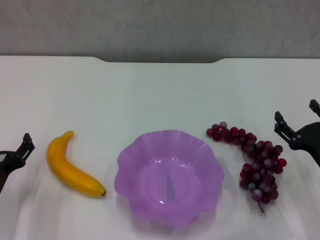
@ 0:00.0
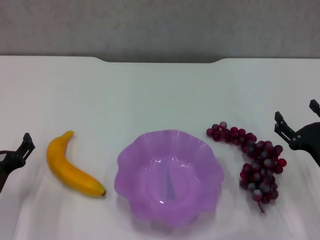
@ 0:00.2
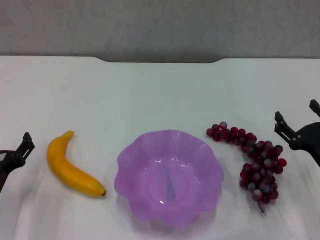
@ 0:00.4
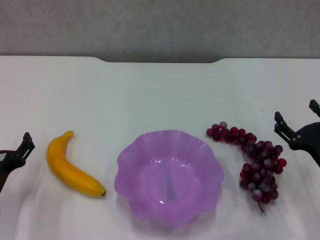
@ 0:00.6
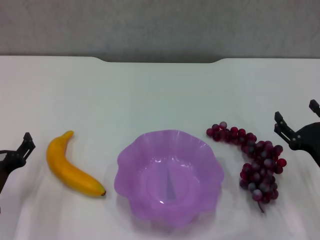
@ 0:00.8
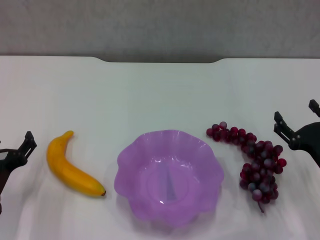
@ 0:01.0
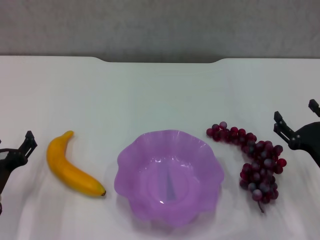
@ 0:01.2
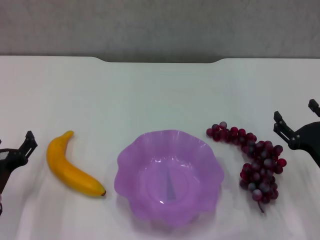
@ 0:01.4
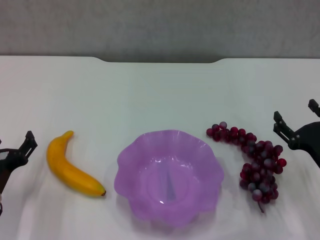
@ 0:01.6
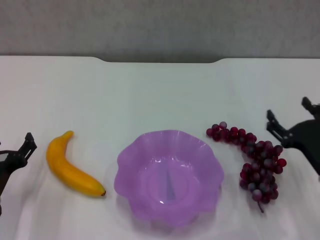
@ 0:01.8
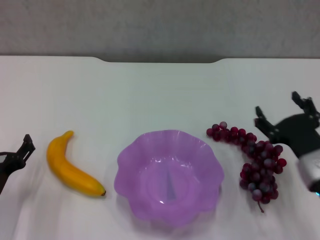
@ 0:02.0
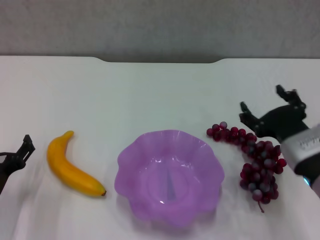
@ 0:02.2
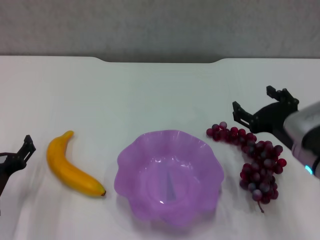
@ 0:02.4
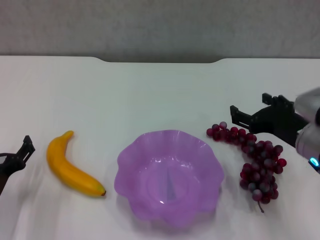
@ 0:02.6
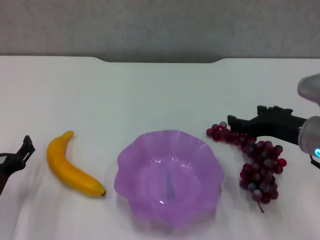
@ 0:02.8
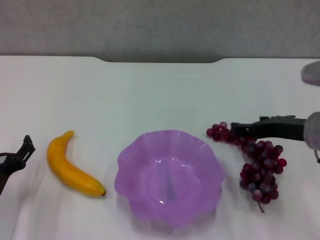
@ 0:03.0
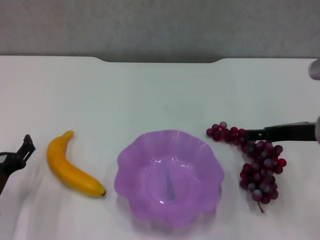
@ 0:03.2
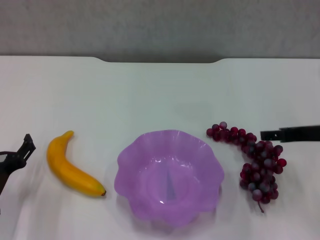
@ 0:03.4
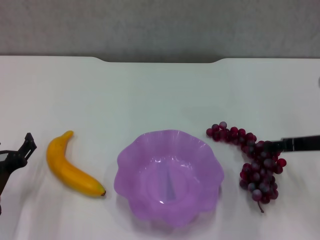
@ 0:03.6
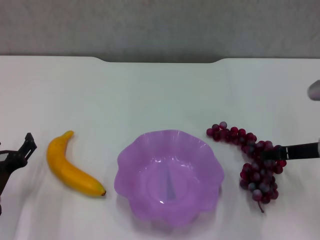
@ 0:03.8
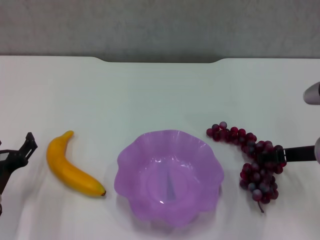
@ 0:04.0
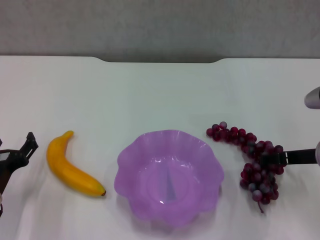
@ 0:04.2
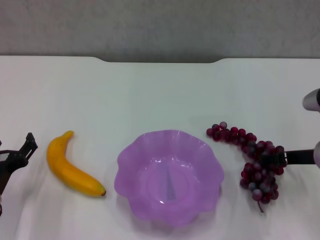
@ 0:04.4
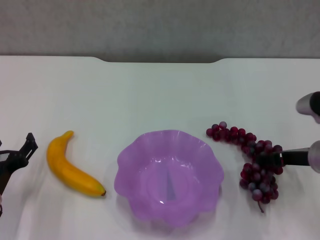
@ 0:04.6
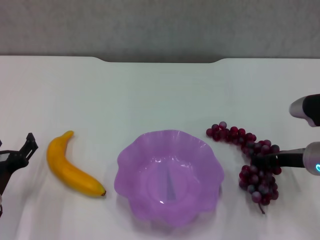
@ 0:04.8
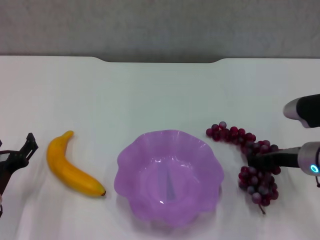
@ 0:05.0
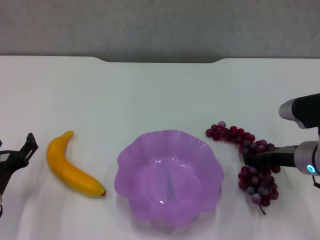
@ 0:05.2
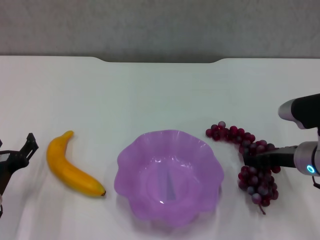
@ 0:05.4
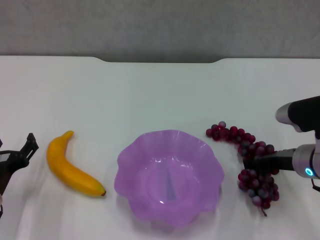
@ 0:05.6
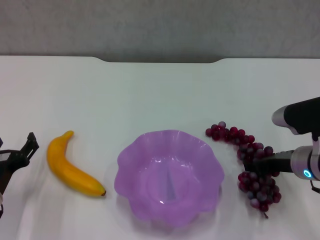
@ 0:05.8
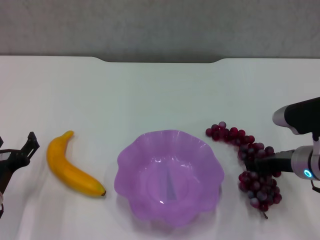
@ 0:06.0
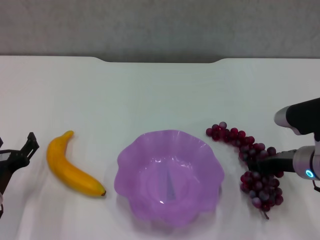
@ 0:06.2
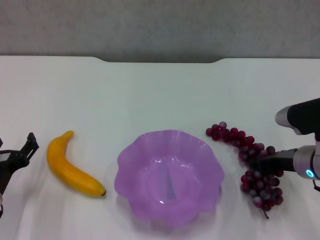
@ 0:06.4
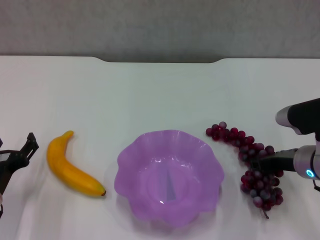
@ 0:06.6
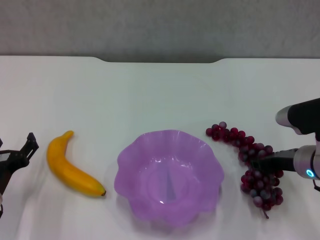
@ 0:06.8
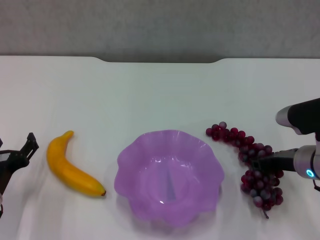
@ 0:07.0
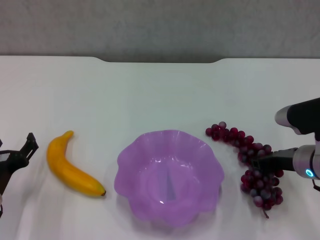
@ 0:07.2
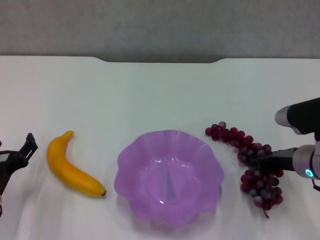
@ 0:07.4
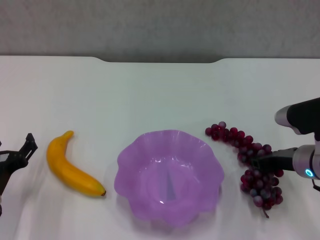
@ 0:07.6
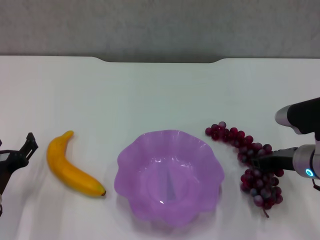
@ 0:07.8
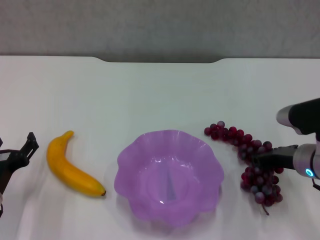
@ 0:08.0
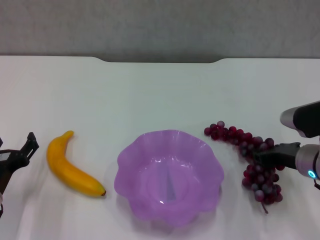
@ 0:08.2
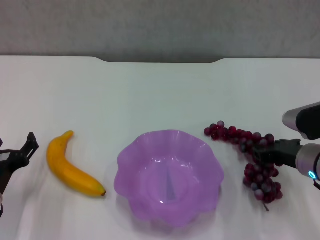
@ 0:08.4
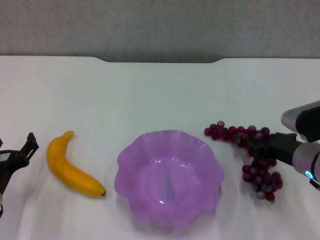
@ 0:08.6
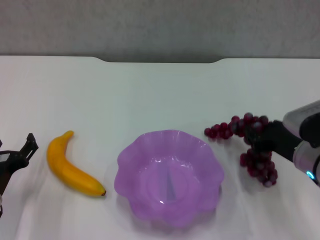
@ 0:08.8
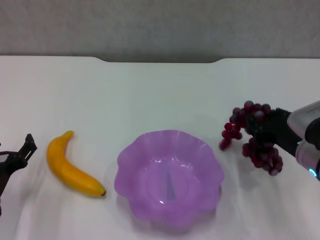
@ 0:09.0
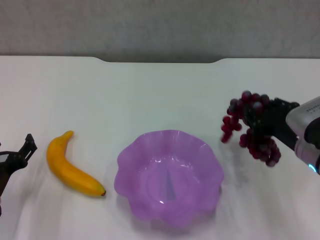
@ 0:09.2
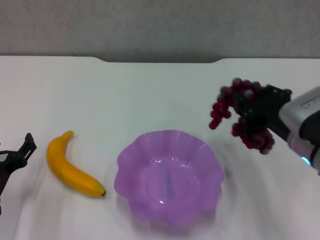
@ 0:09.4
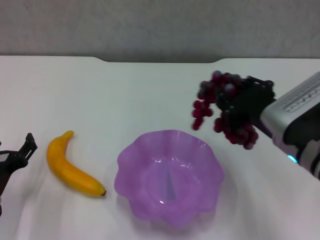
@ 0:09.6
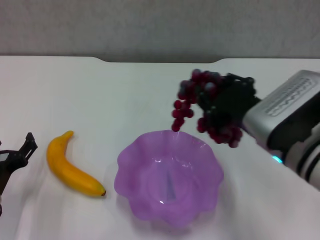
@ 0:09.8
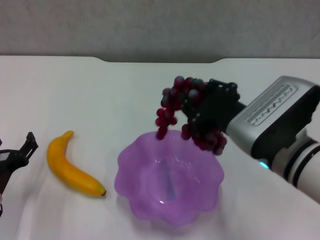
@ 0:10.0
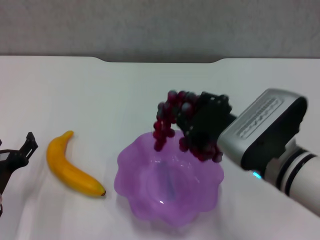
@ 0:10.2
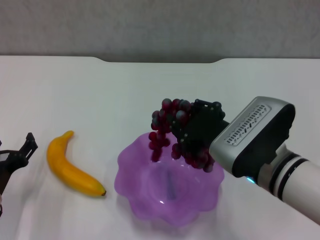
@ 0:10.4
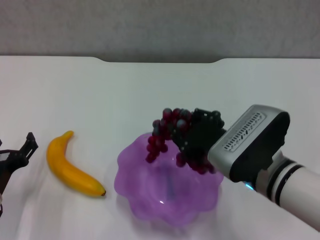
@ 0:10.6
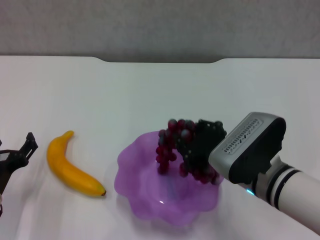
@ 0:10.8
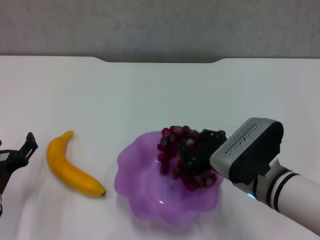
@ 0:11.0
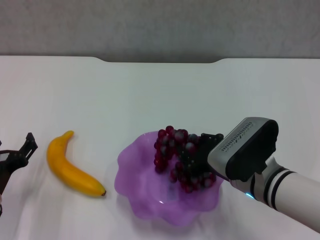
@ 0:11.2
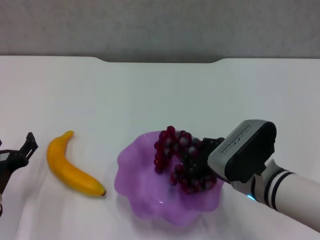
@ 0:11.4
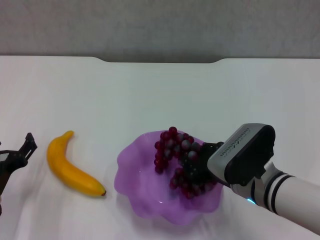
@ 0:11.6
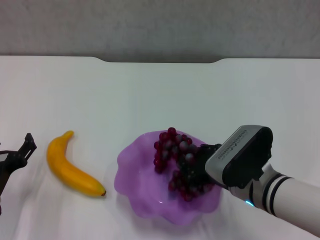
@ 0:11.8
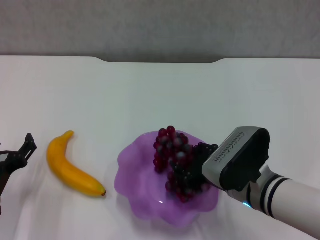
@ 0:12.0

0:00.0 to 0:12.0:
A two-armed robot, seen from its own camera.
Step, 0:00.0 to 0:06.2: Grasp the grape with right gripper.
0:00.0 to 0:01.6: The two grippers keep their place.
0:01.6 to 0:03.0: The right gripper travels upward and forward by about 15 cm.
0:03.0 to 0:04.4: The right gripper heads downward, covering some 5 cm.
0:04.4 to 0:06.0: The grippers move only a little.
0:06.0 to 0:07.6: The right gripper closes up.
0:07.6 to 0:09.0: The right gripper changes place by roughly 5 cm.
0:09.0 to 0:10.4: The right gripper is displaced to the left by about 10 cm.
0:10.4 to 0:12.0: The right gripper travels downward by about 5 cm.

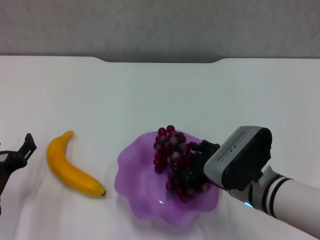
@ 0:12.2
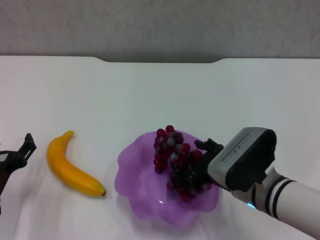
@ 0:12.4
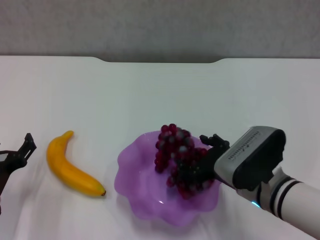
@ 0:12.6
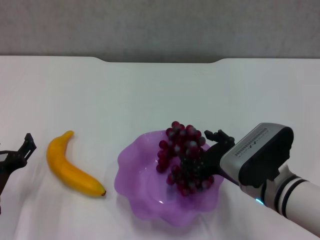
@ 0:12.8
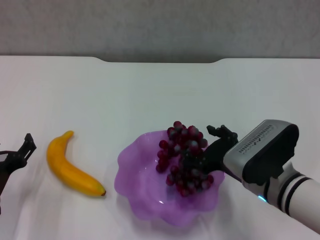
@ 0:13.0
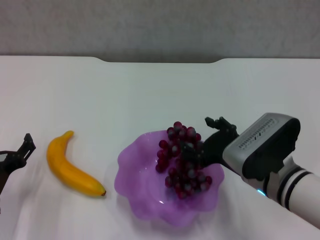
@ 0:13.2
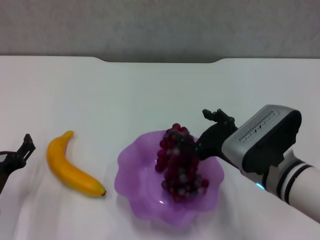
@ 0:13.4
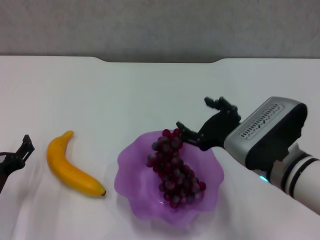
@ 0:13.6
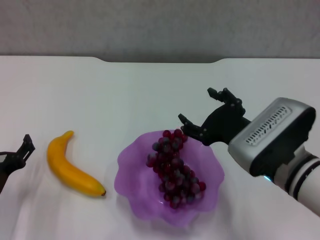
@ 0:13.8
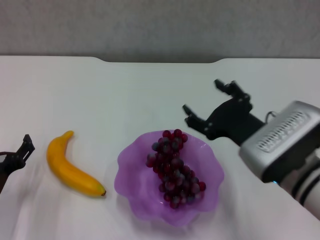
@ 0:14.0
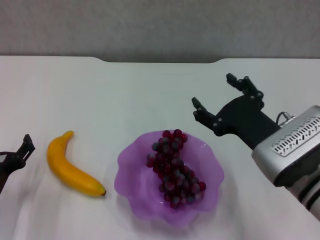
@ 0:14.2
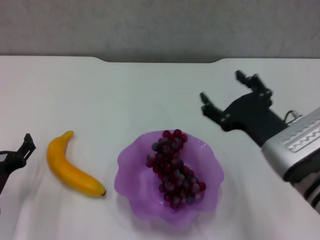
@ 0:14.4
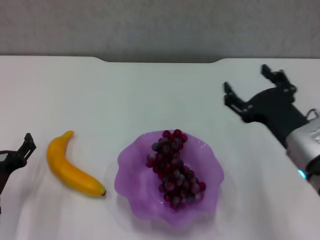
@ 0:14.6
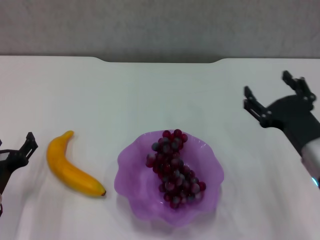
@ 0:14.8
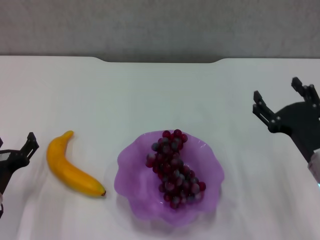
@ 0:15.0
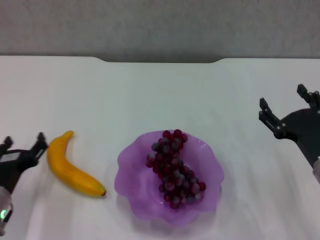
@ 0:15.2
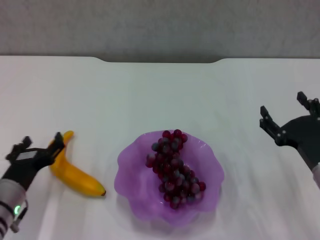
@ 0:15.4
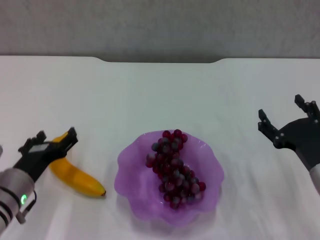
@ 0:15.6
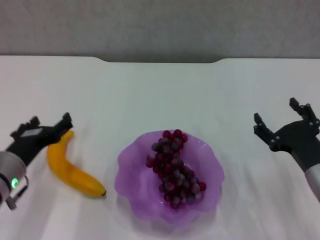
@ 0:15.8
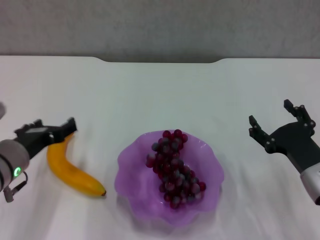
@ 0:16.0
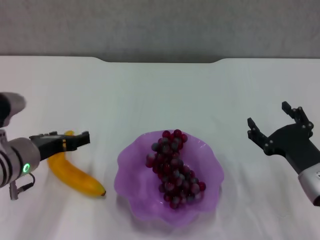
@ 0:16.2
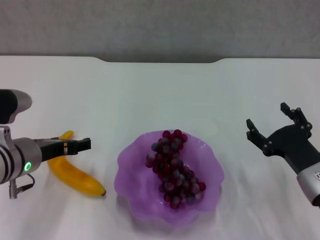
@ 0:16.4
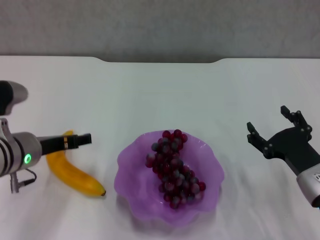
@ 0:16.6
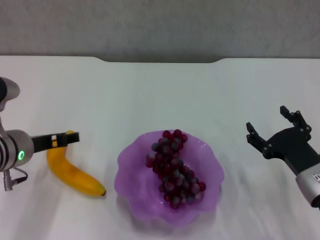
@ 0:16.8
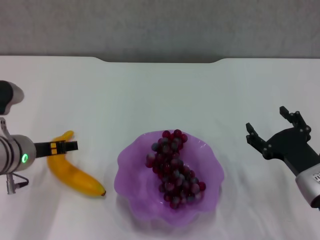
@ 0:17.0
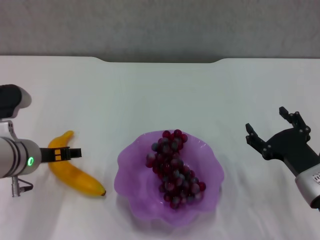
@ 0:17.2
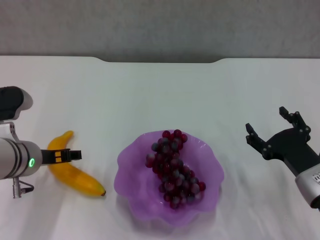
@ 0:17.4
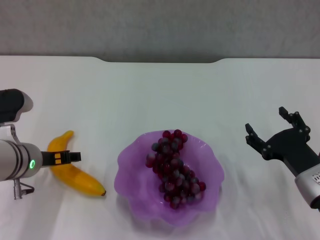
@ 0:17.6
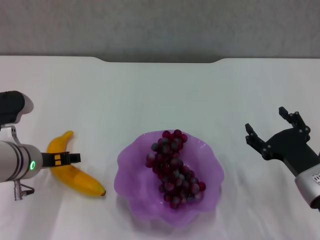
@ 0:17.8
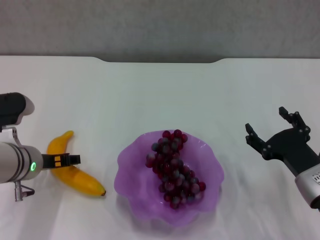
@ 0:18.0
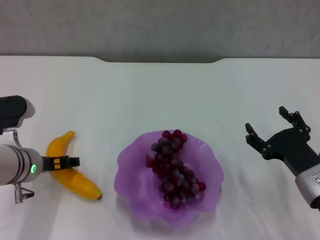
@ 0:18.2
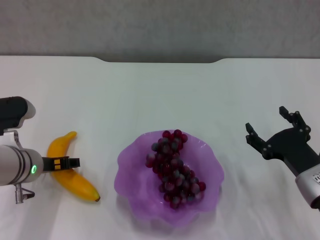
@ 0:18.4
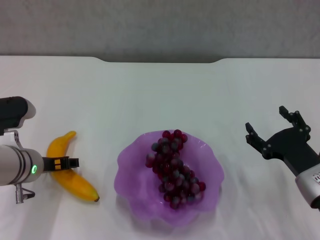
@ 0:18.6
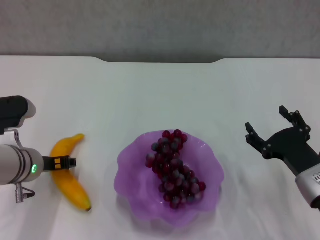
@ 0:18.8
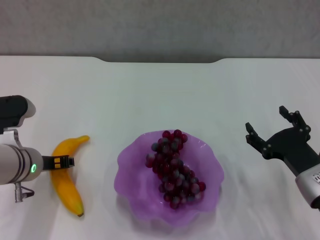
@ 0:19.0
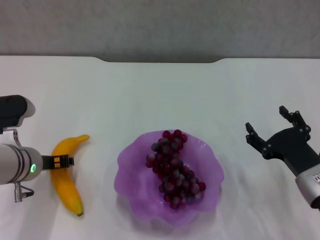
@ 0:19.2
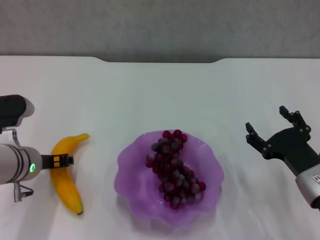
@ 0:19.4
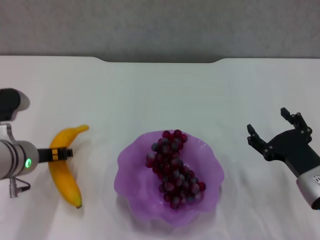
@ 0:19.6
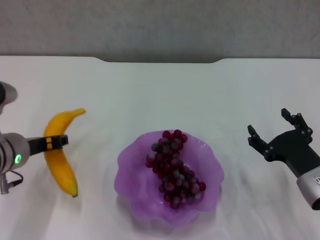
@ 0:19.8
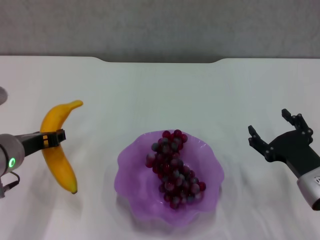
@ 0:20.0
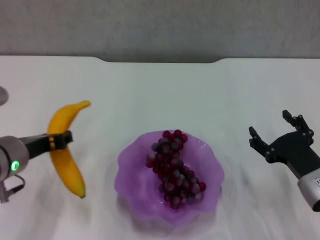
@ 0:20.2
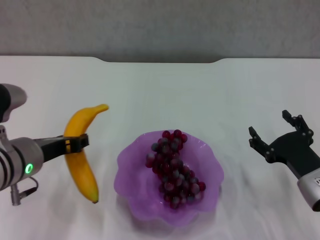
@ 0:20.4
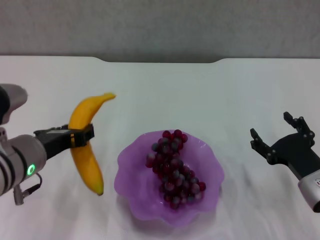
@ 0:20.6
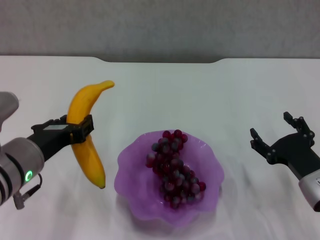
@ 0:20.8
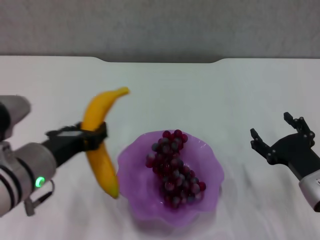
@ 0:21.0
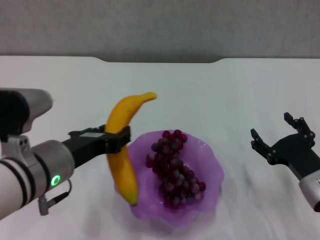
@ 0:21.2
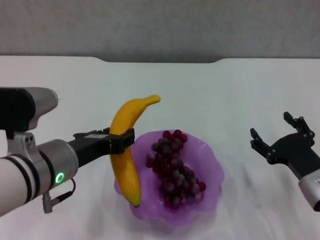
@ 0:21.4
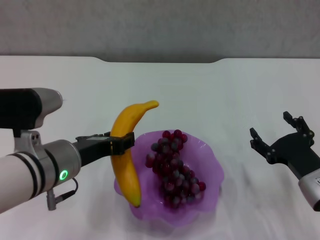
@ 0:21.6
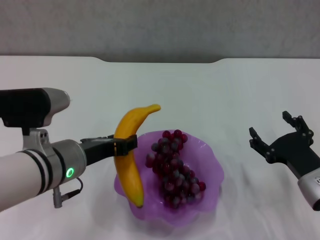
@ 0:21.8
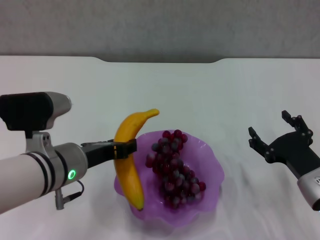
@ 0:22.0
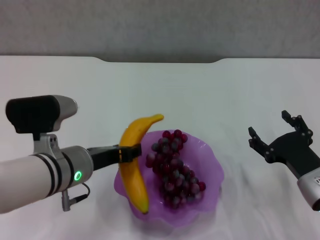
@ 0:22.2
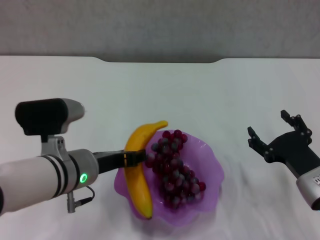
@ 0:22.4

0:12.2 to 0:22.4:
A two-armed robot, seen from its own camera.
Step, 0:14.0 to 0:18.8: Grasp the banana with left gripper.
0:12.2 to 0:13.6: The right gripper changes place by about 5 cm, and opens its fingers.
0:13.6 to 0:15.2: The right gripper is displaced to the right by approximately 10 cm.
0:15.2 to 0:16.6: The left gripper moves upward, forward and to the right, some 15 cm.
0:16.6 to 0:18.0: The grippers move only a little.
0:18.0 to 0:19.4: The left gripper closes up.
0:19.4 to 0:21.0: The left gripper goes roughly 10 cm backward and upward.
0:21.0 to 0:22.4: The left gripper changes place by approximately 5 cm.
